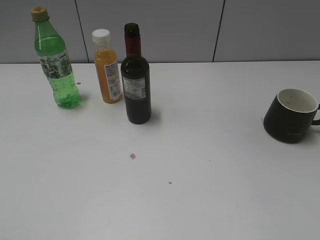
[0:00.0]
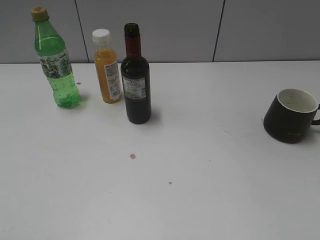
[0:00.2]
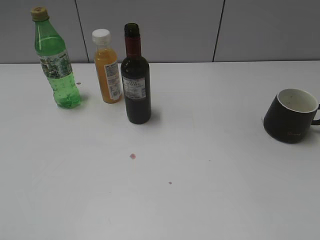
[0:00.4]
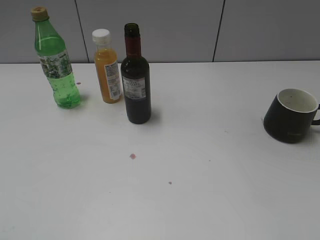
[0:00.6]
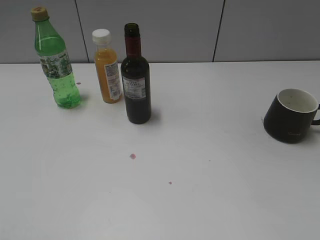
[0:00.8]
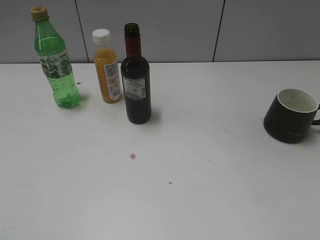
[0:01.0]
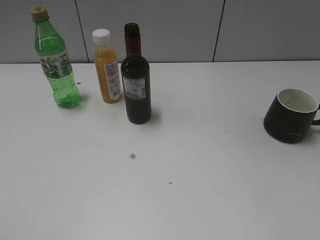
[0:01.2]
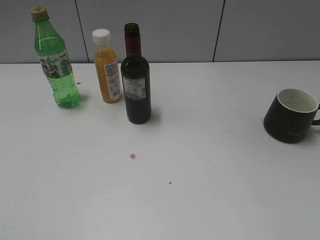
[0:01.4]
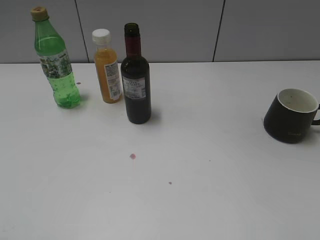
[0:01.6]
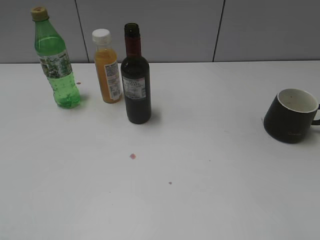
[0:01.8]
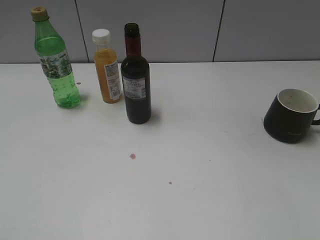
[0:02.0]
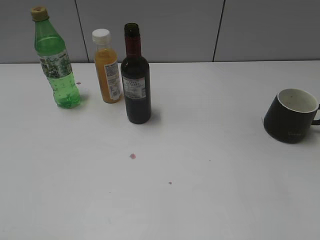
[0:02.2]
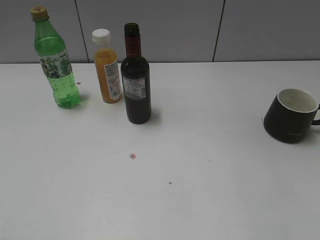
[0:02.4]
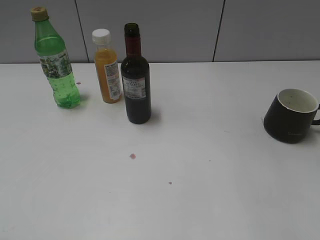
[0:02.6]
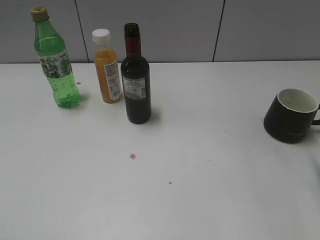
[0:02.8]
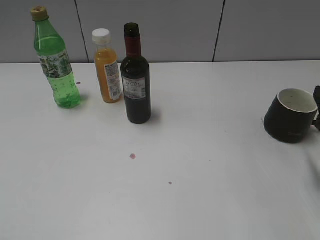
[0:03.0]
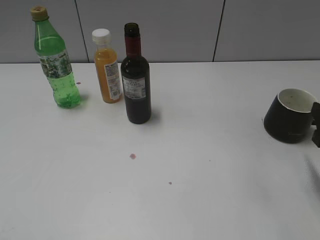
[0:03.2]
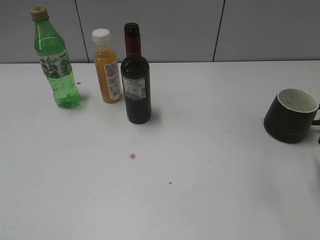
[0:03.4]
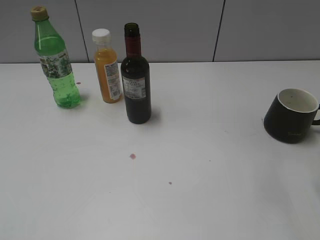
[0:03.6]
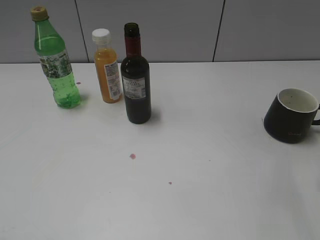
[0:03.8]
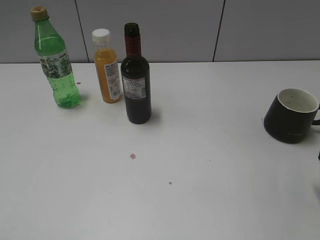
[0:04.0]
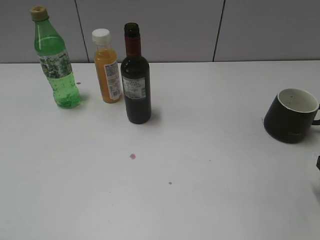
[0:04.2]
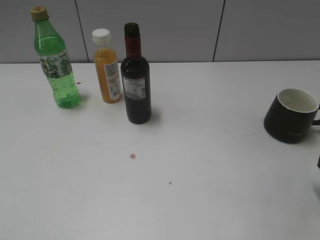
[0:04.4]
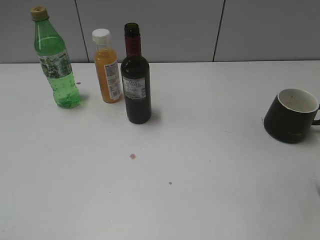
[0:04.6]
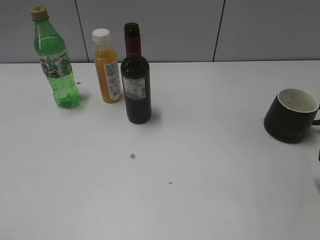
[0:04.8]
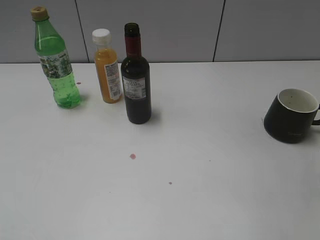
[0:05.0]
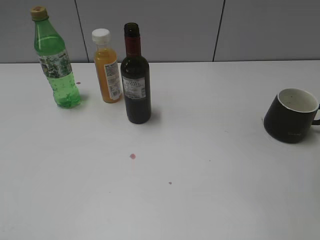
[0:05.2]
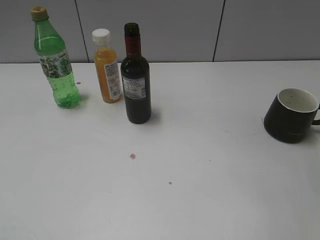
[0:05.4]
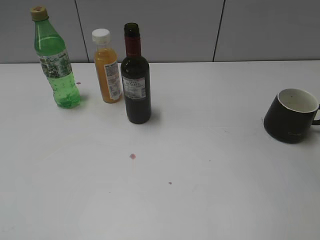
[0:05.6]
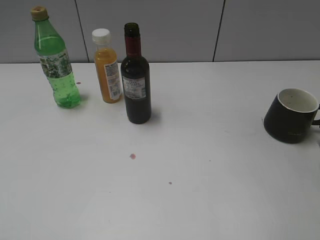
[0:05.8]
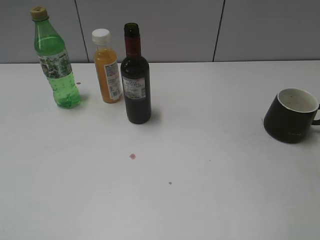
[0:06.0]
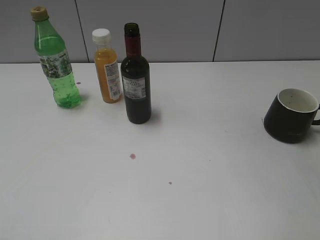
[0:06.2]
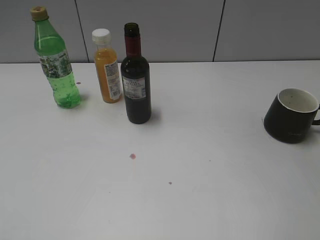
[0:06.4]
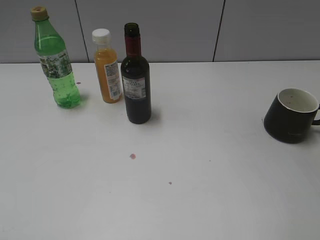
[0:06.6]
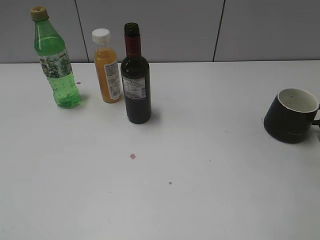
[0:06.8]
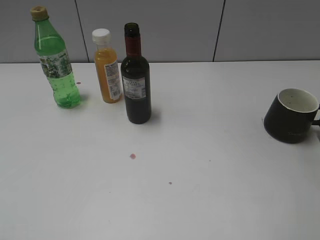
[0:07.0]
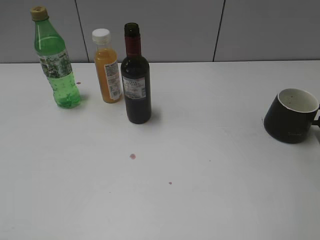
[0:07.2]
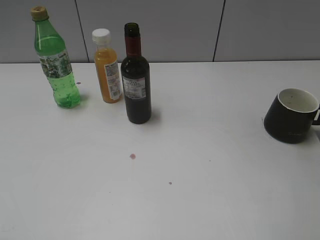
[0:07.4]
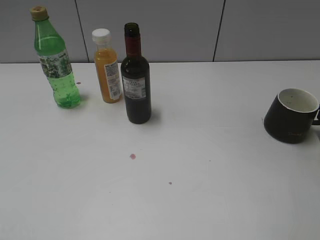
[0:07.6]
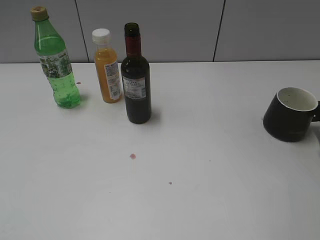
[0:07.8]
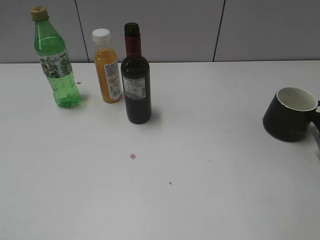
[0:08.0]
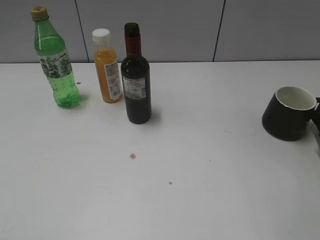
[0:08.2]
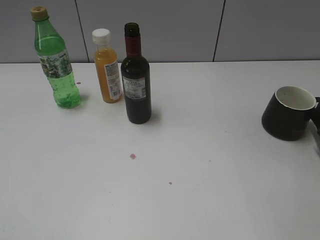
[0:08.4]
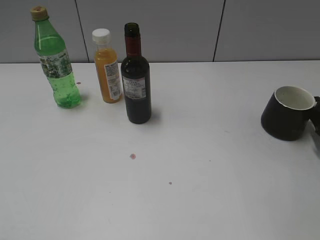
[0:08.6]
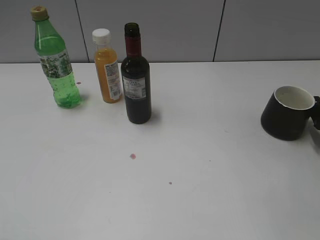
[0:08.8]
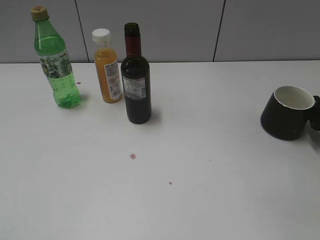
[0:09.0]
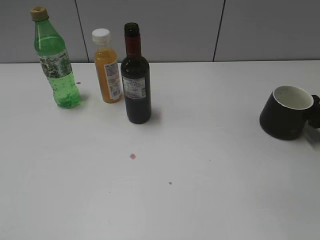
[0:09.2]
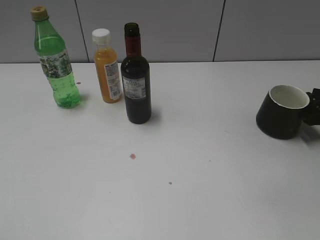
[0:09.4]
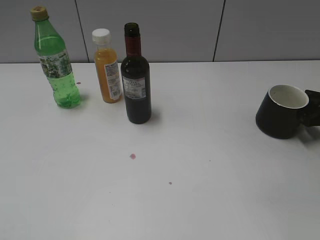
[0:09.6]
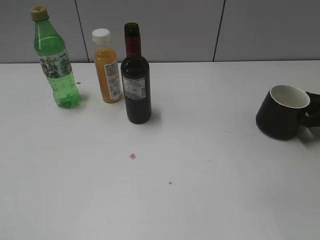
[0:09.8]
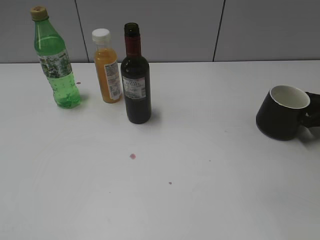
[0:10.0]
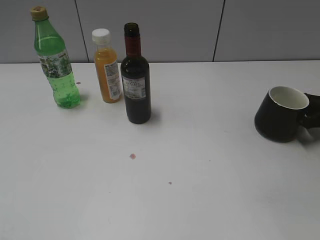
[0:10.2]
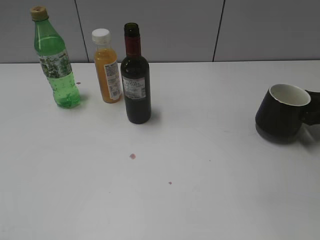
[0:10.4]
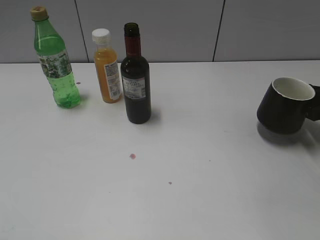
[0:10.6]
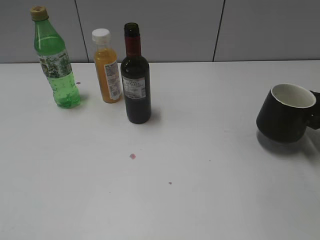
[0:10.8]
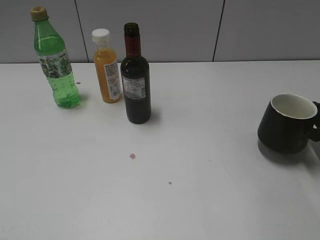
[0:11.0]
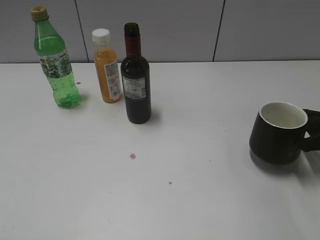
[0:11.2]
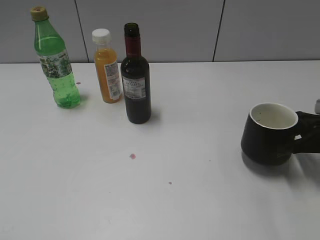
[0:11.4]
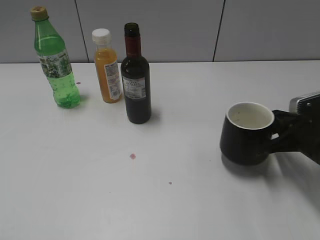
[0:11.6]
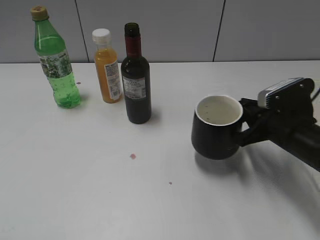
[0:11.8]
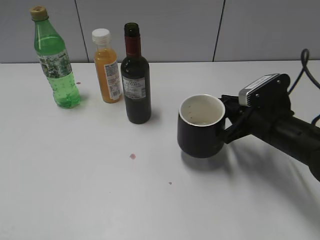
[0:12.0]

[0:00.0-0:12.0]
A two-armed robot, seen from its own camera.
0:07.6 to 0:09.0: The right gripper moves approximately 5 cm.
0:09.0 to 0:10.4: The right gripper closes its fingers.
0:10.4 to 0:12.0: The right gripper heads to the left, covering some 20 cm.

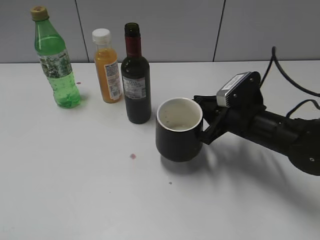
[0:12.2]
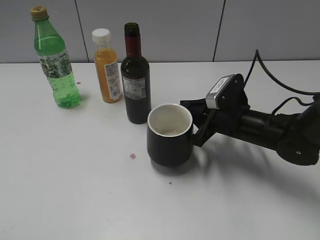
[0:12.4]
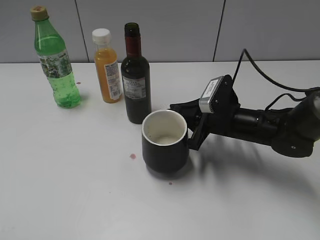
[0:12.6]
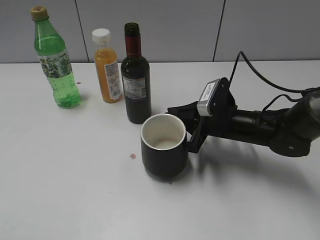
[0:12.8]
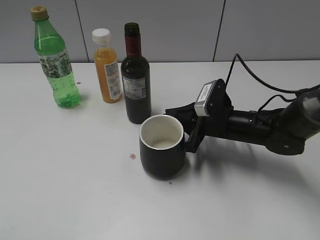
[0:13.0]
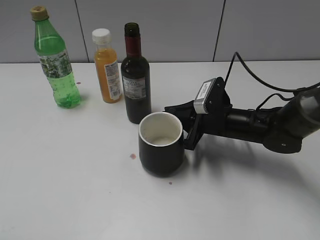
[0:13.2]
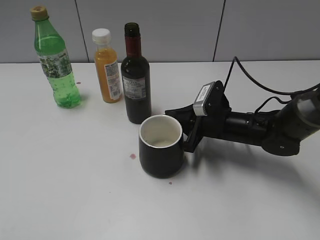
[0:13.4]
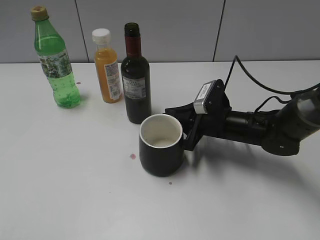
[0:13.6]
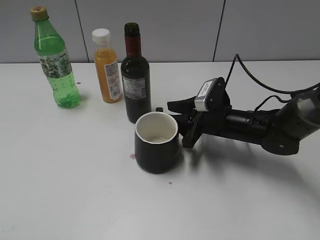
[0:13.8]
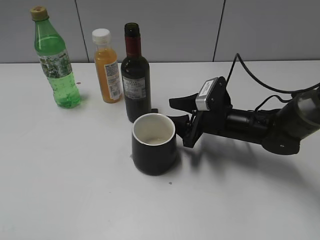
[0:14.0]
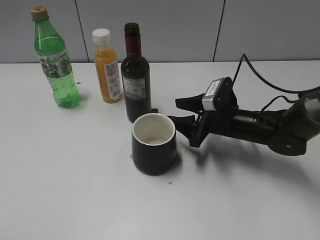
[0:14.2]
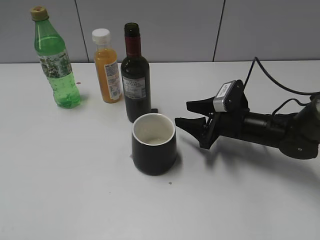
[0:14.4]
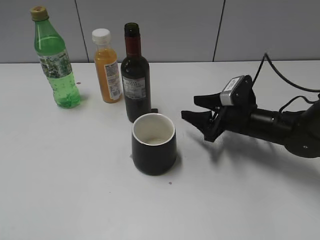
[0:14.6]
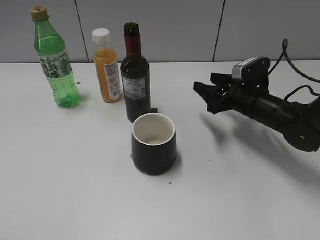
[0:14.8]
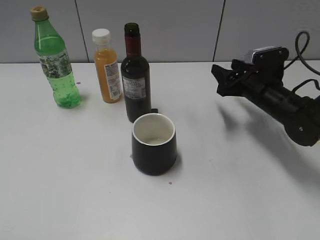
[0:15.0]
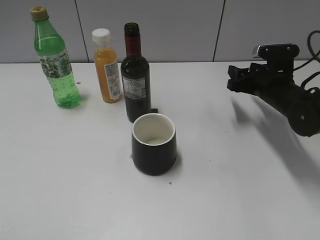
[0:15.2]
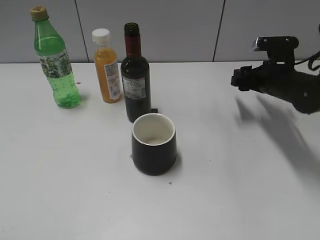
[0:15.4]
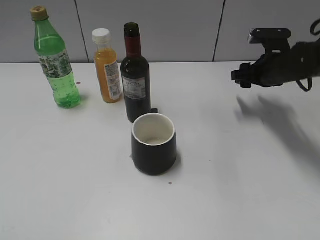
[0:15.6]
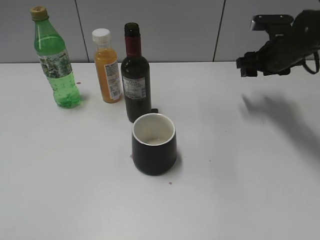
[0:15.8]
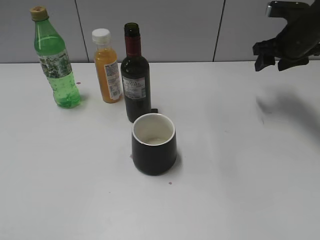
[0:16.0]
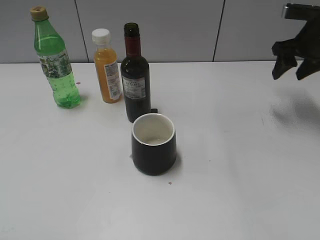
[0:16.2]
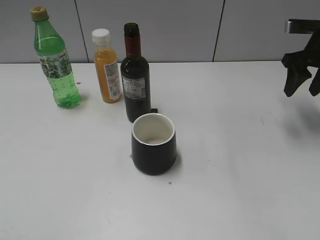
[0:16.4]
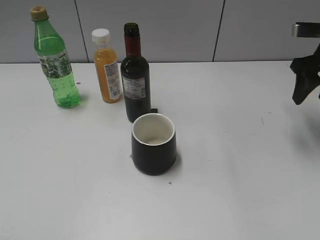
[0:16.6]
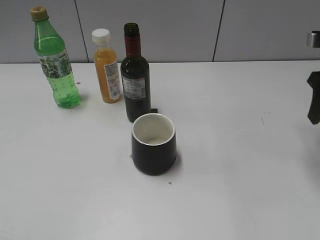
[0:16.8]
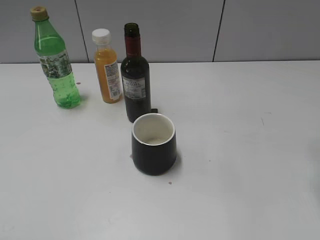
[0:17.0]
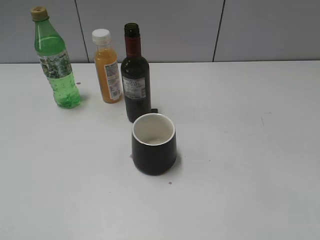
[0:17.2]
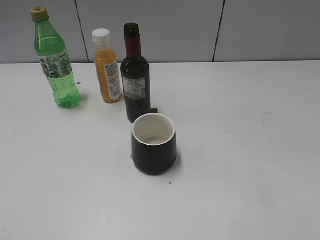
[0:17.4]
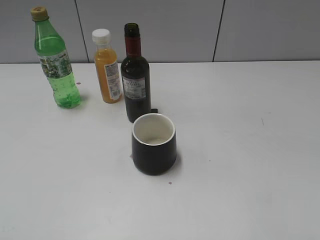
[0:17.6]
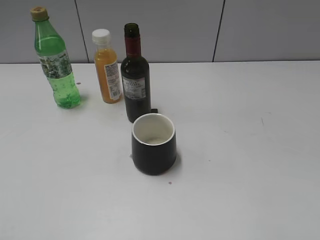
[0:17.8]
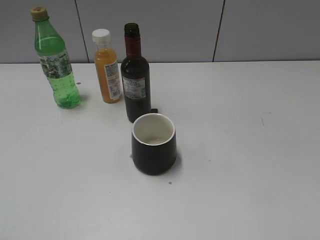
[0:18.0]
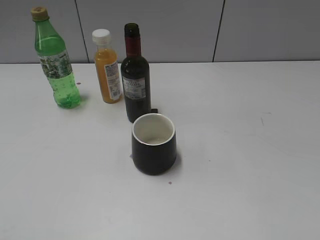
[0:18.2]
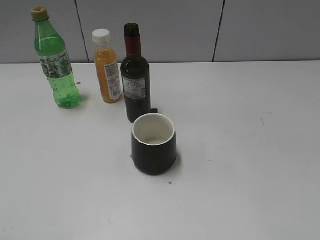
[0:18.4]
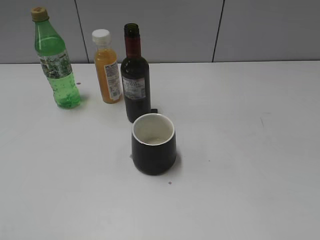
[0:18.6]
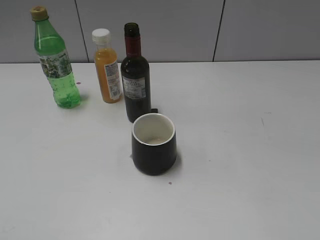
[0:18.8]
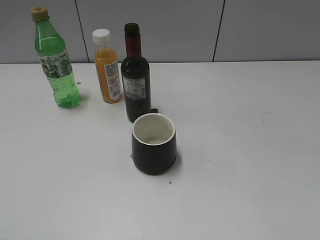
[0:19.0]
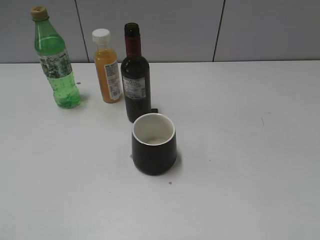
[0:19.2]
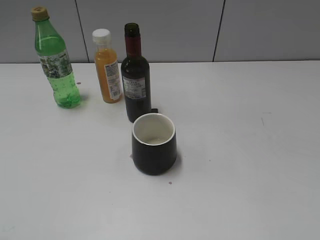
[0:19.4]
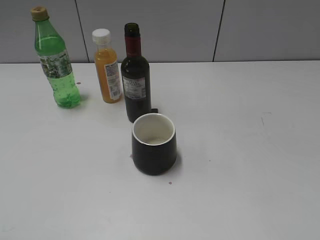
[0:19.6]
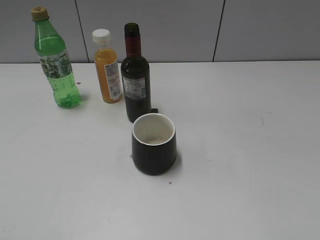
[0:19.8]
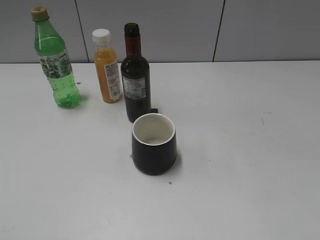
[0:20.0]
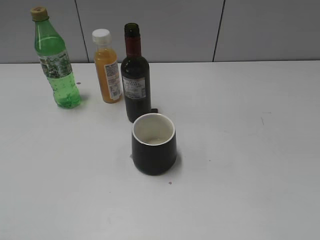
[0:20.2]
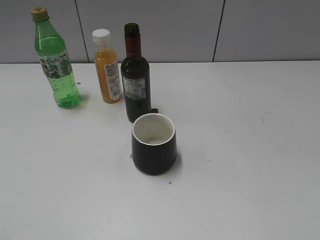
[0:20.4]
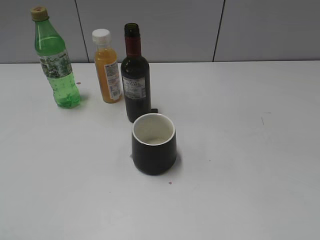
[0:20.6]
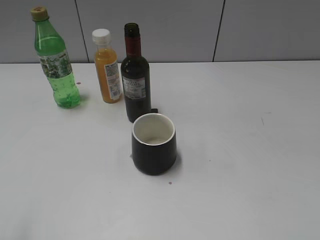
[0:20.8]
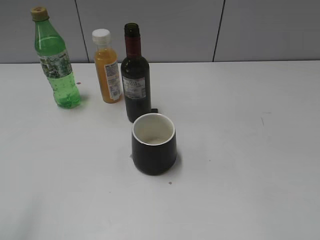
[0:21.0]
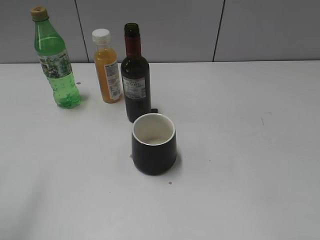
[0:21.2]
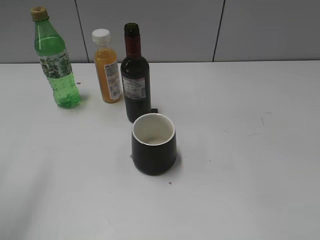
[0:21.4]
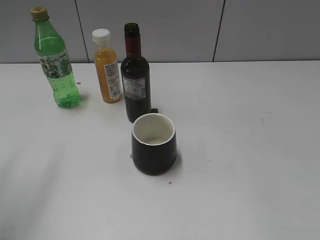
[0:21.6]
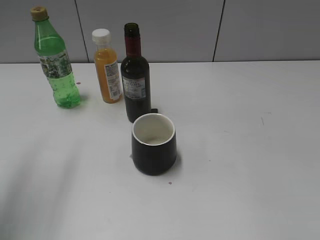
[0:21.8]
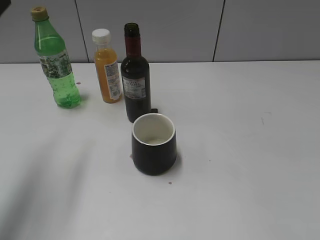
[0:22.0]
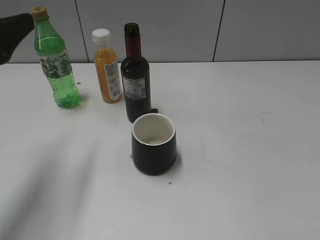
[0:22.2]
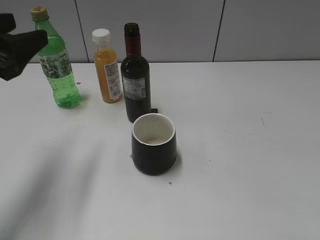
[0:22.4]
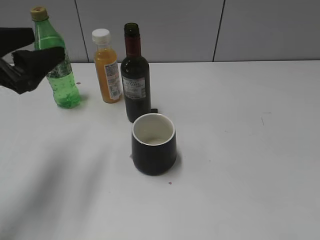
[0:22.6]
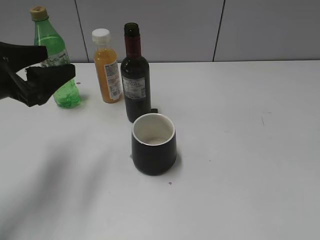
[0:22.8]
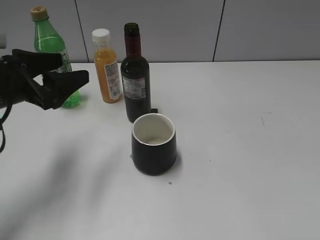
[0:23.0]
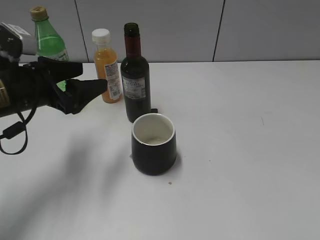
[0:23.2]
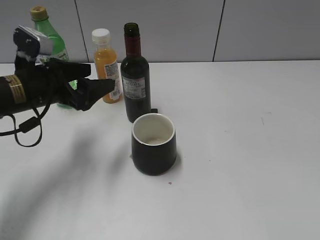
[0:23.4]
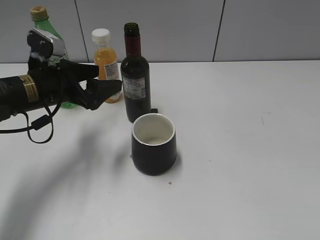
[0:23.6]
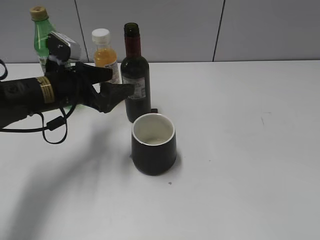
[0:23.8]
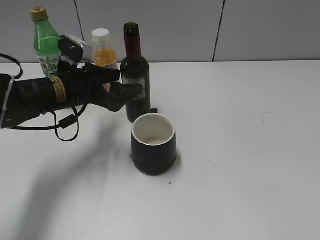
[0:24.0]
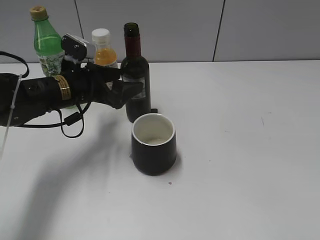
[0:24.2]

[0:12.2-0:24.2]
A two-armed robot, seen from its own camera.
Step, 0:12.2 to 0:14.4: Place the black cup in the center of view with right gripper.
0:12.2 to 0:13.8: The right gripper shifts by about 5 cm, and opens up.
0:13.8 to 0:15.2: The right gripper moves to the right, about 10 cm.
0:15.2 to 0:16.6: The right gripper travels upward and to the right by some 15 cm.
0:16.6 to 0:18.2: The right gripper goes about 35 cm backward.
0:21.2 to 0:22.6: The left gripper shifts roughly 15 cm forward, downward and to the right.
0:22.6 to 0:24.2: The left gripper heads downward, forward and to the right, covering about 20 cm.
